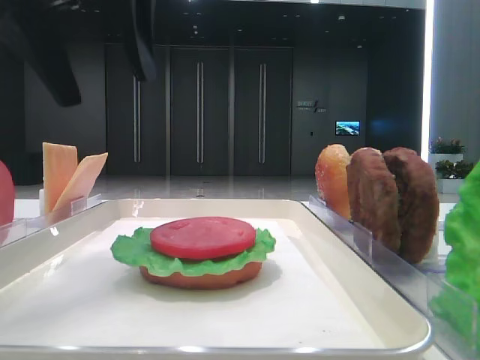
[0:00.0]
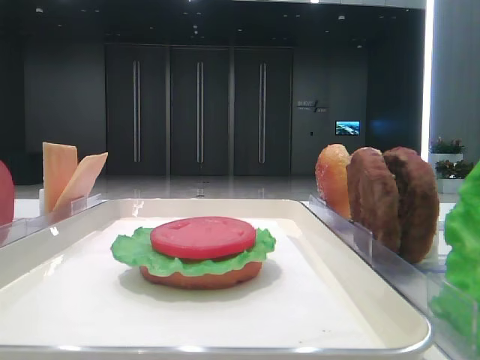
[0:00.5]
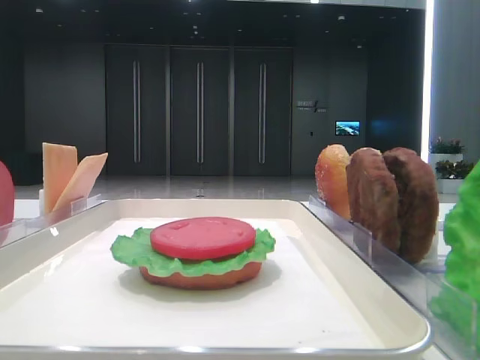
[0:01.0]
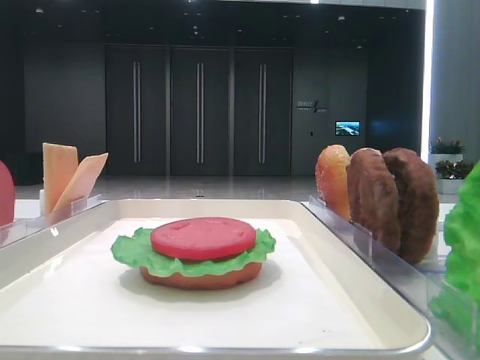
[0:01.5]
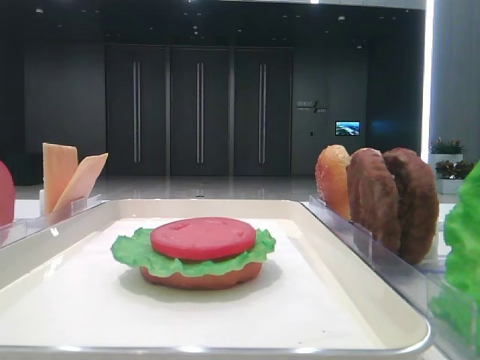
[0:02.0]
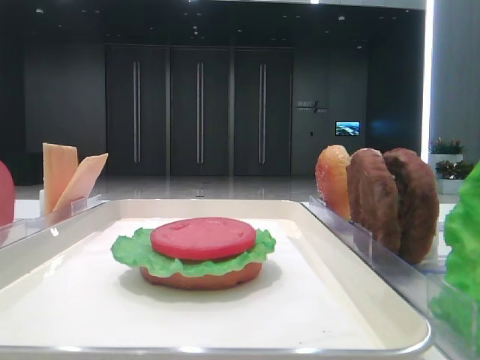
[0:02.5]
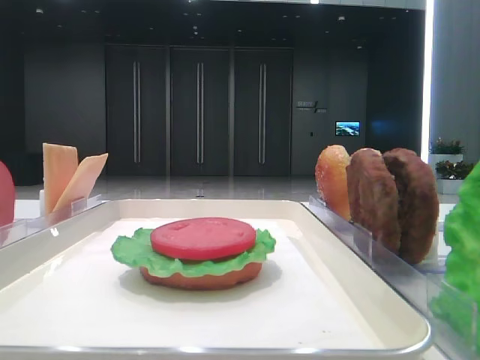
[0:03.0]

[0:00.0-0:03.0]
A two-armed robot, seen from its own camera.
0:00.0 to 0:01.5: The left gripper is displaced to the left and backward by some 25 cm.

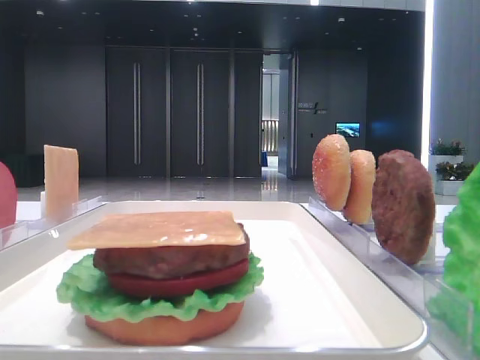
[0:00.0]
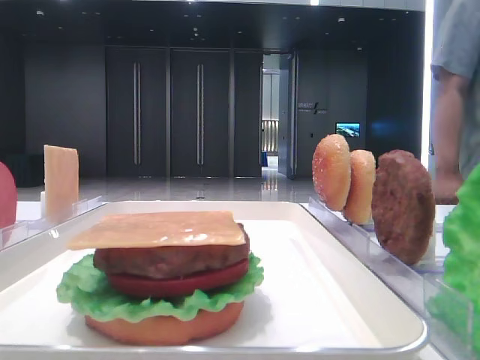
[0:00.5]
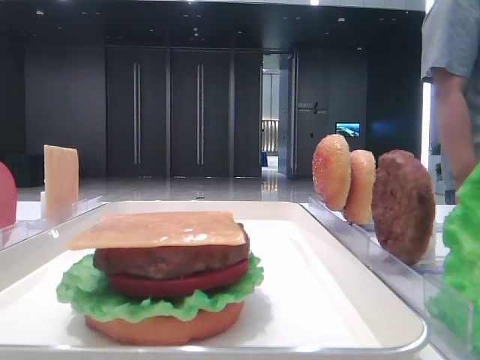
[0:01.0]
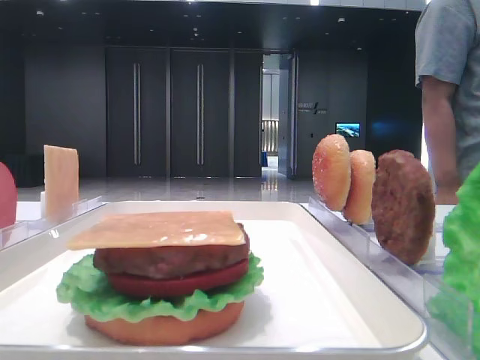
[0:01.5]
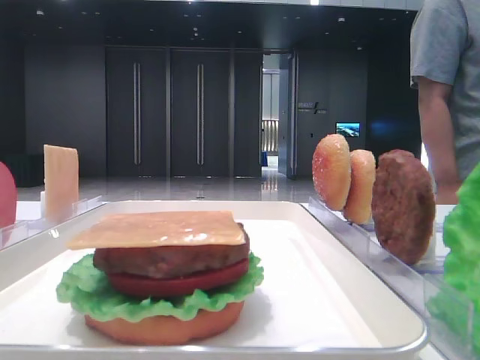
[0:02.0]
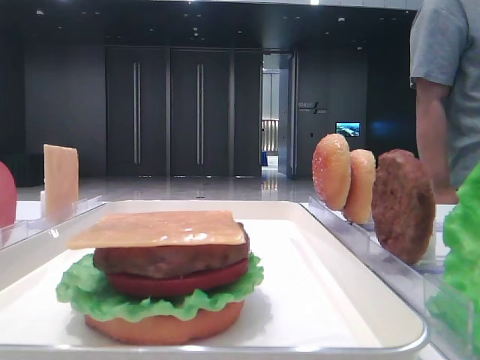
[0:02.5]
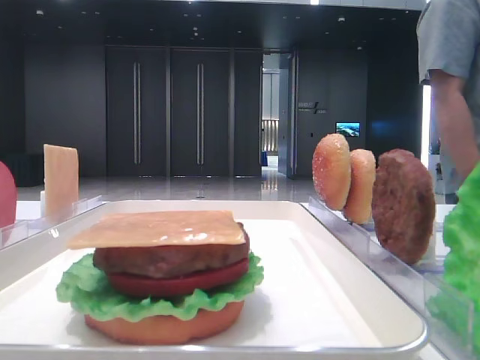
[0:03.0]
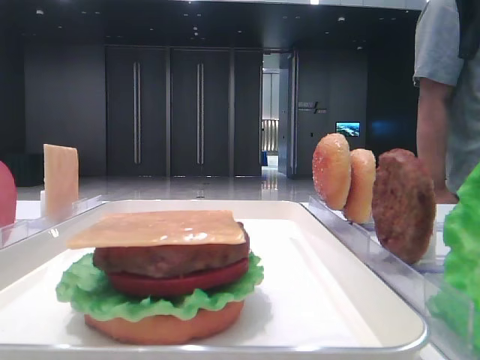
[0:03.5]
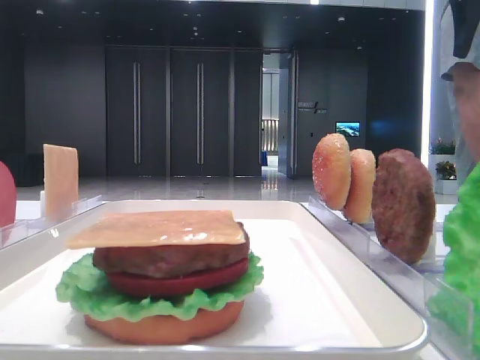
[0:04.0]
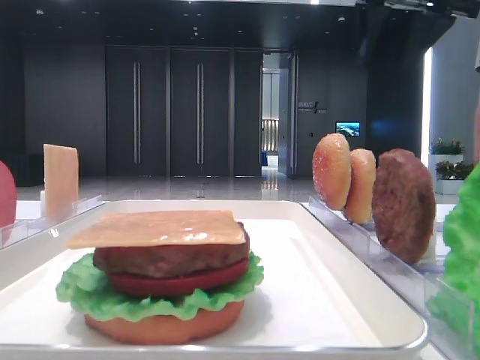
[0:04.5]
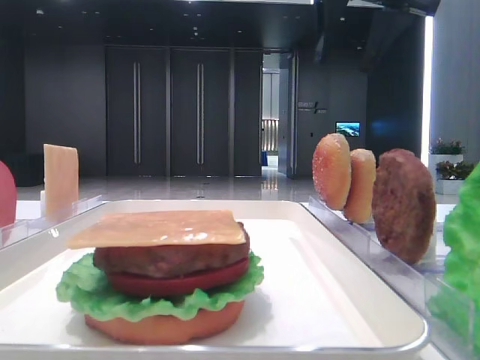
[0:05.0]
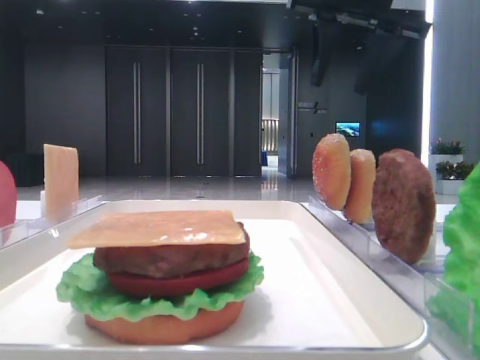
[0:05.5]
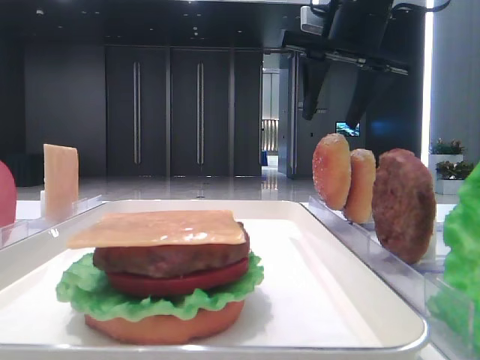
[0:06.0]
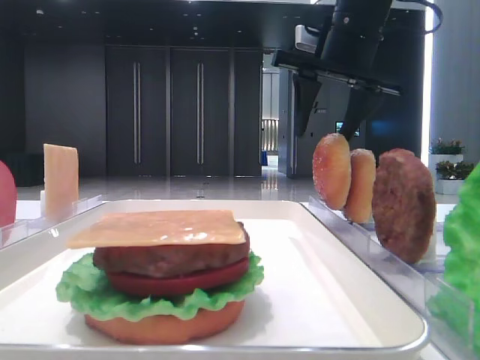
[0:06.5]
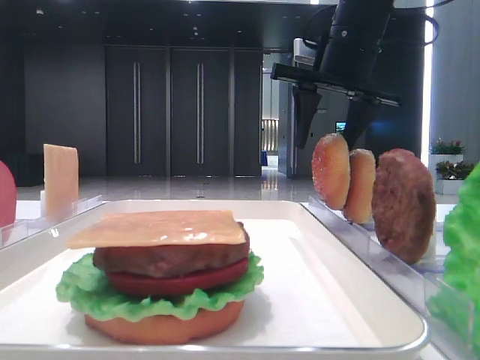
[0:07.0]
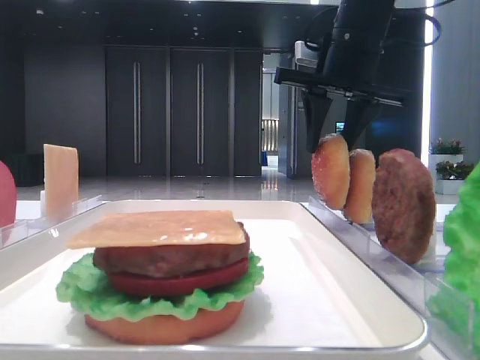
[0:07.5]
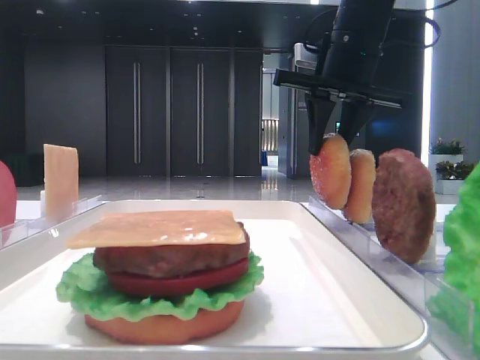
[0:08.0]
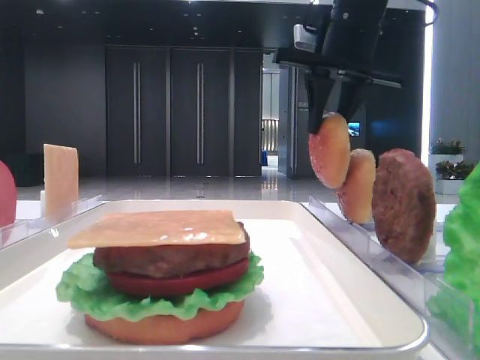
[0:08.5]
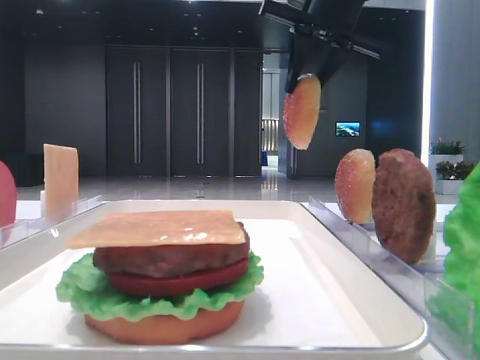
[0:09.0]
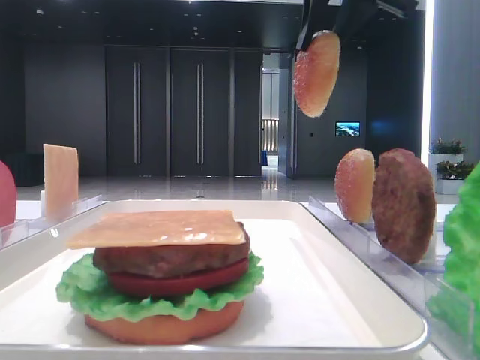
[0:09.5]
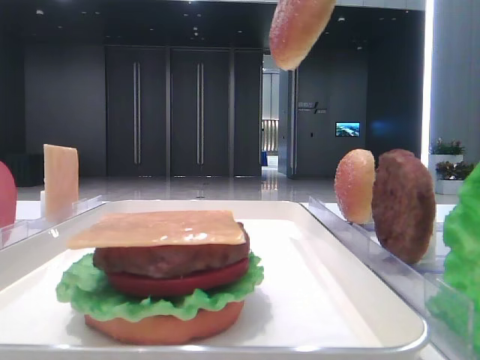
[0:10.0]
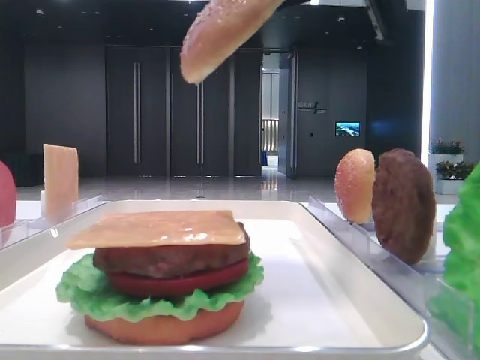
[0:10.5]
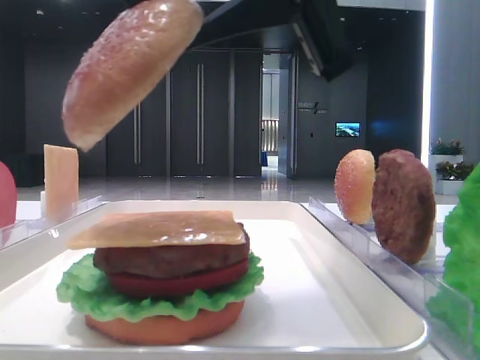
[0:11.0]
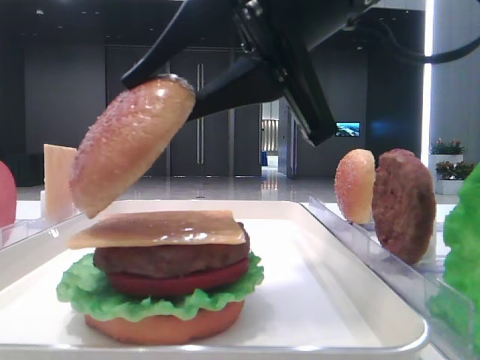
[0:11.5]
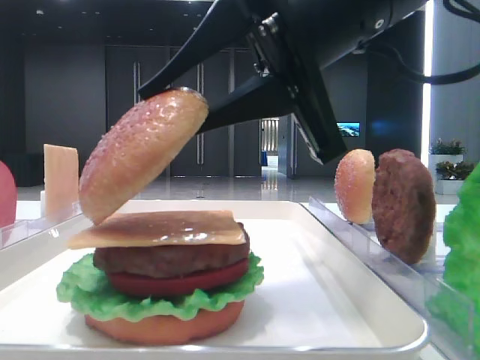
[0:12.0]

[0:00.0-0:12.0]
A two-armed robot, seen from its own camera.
Step, 0:00.0 to 0:08.0: Pick up the top bread slice with the right hand.
0:02.0 to 0:04.0: The right gripper travels forward by roughly 30 cm.
0:04.0 to 0:06.0: The right gripper is displaced to the left and downward by approximately 15 cm.
0:06.0 to 0:08.0: The right gripper closes its fingers.
0:08.0 to 0:10.0: The right gripper travels upward and backward by approximately 15 cm.
0:10.0 to 0:12.0: The right gripper heads downward, backward and to the left, covering some 20 cm.

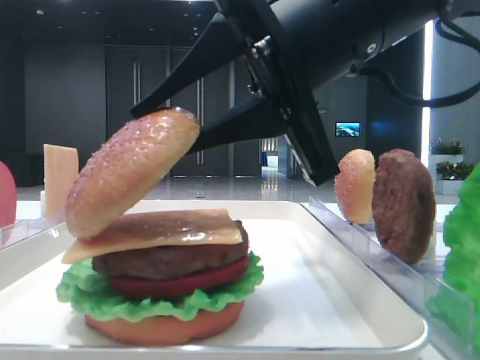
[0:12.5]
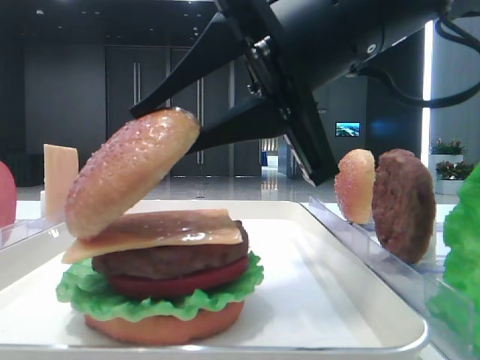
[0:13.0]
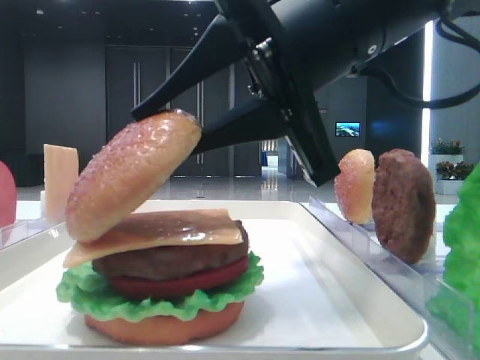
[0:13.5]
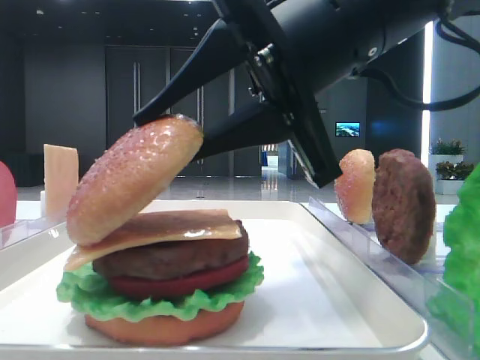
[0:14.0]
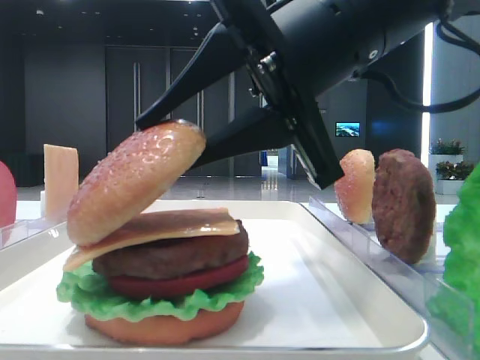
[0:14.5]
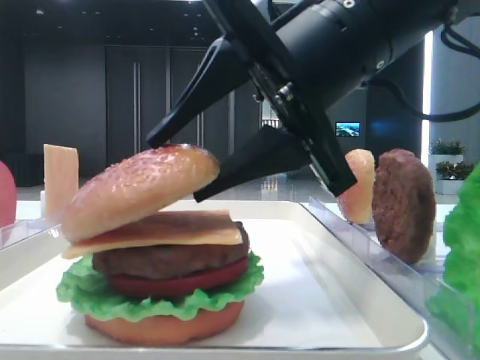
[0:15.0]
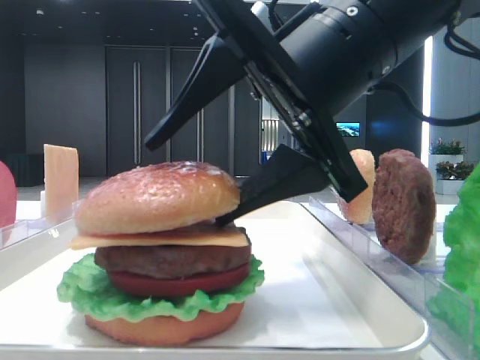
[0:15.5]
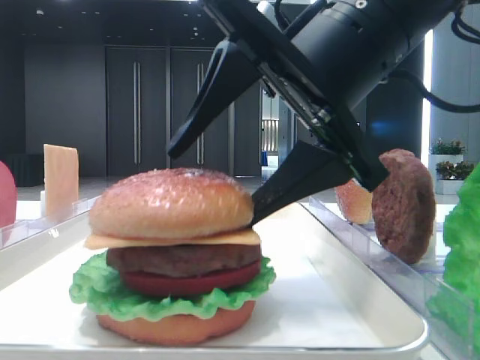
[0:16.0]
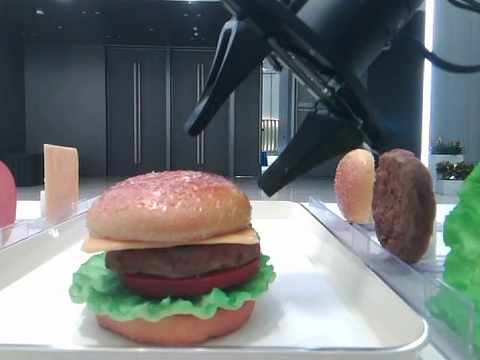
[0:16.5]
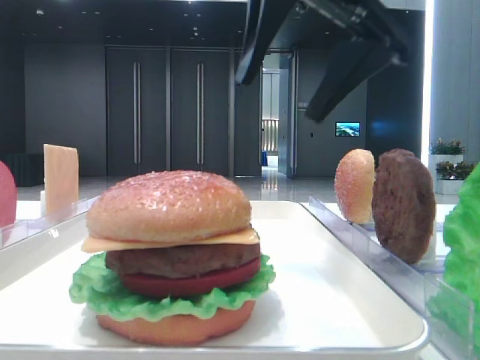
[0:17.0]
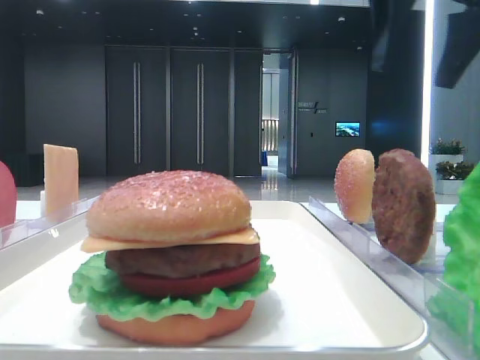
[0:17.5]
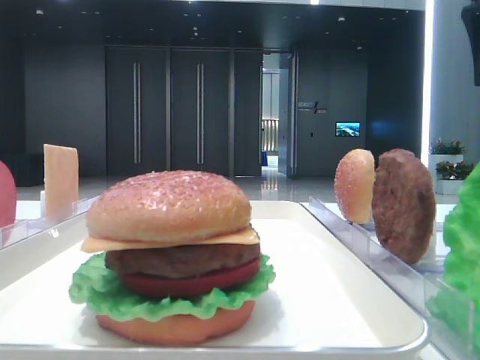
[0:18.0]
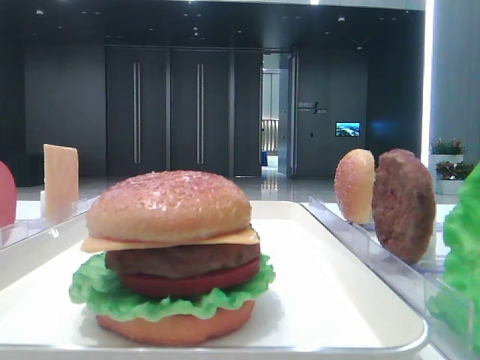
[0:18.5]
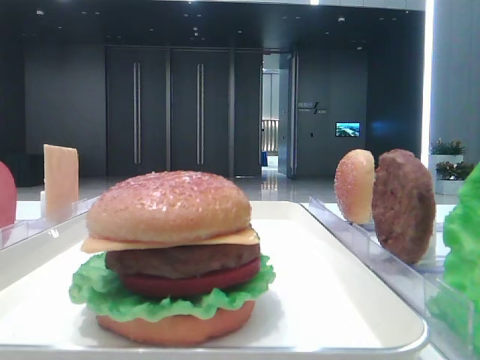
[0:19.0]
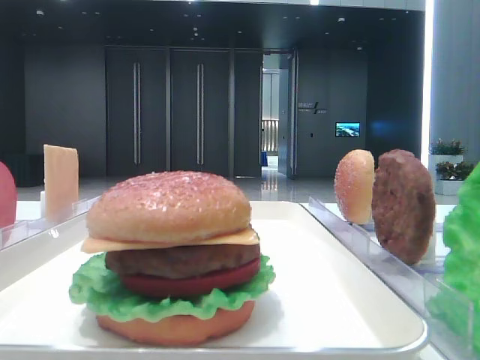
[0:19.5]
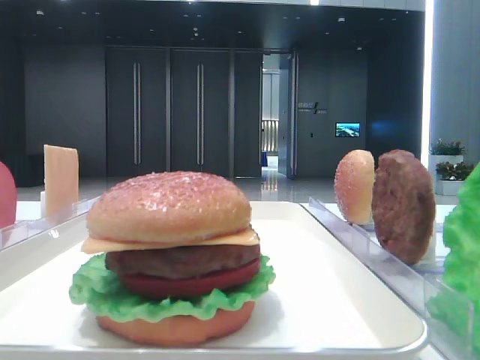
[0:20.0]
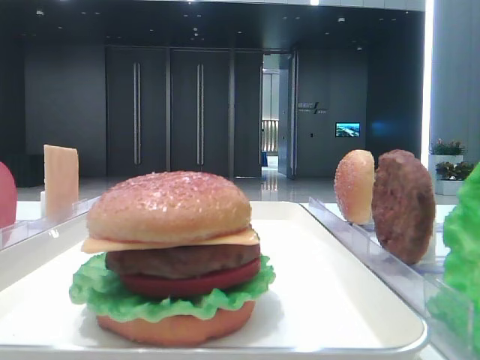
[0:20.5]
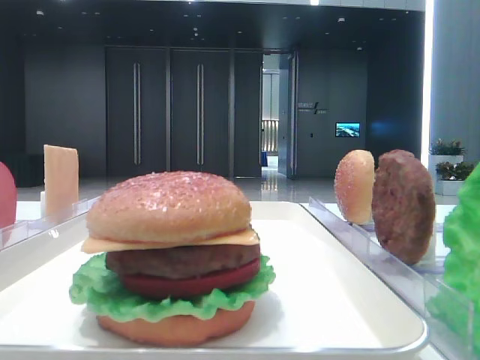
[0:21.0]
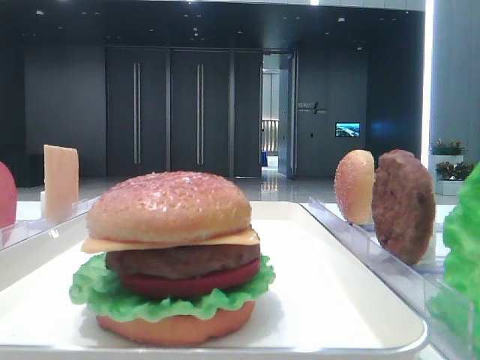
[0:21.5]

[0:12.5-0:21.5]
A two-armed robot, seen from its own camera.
Step, 0:12.5 to 0:16.0: Place the top bread slice on the cheese with the right hand.
0:12.5 to 0:14.5: Both grippers stay put.
0:14.5 to 0:17.0: The right gripper travels upward by about 10 cm, and opens its fingers.
0:17.0 to 0:19.5: The right gripper shifts roughly 30 cm backward and to the right.

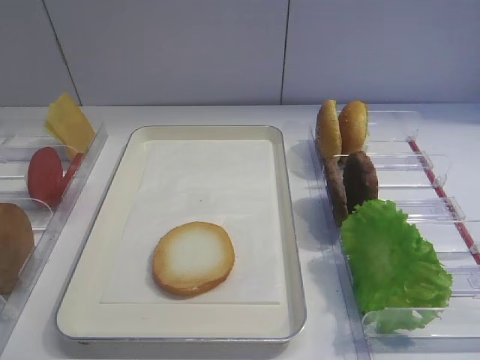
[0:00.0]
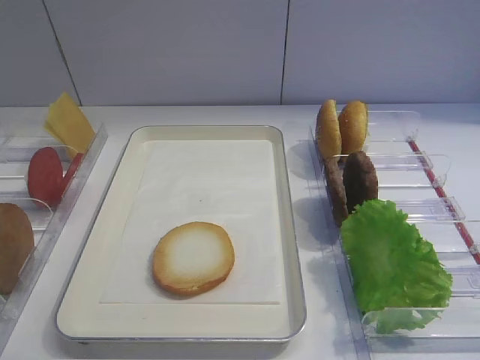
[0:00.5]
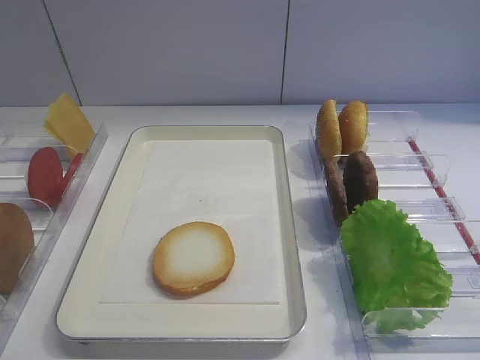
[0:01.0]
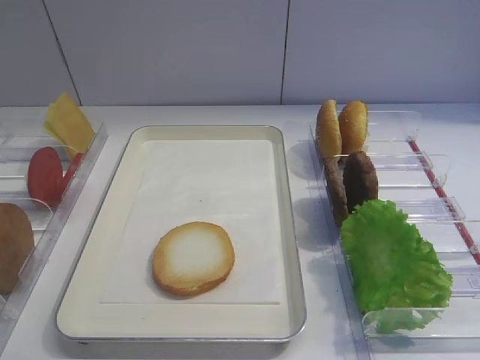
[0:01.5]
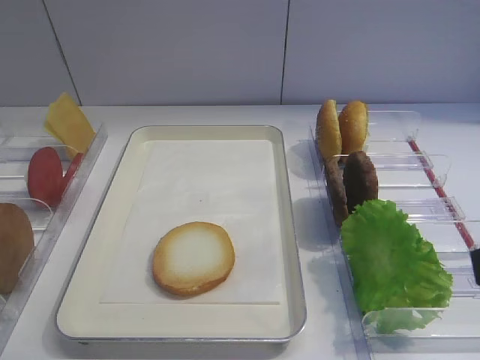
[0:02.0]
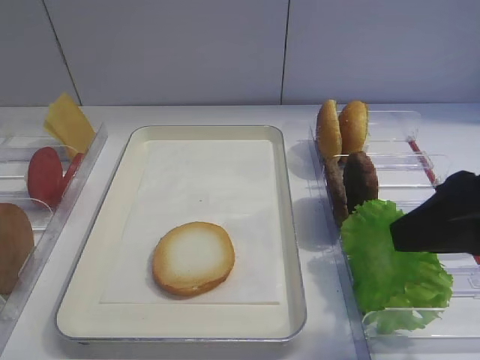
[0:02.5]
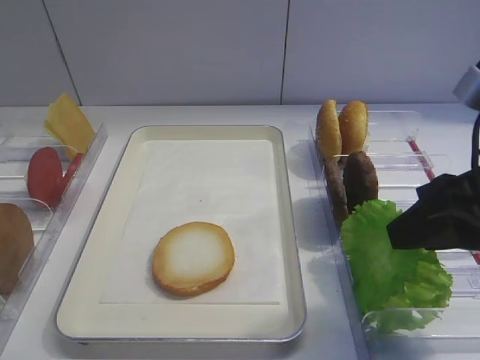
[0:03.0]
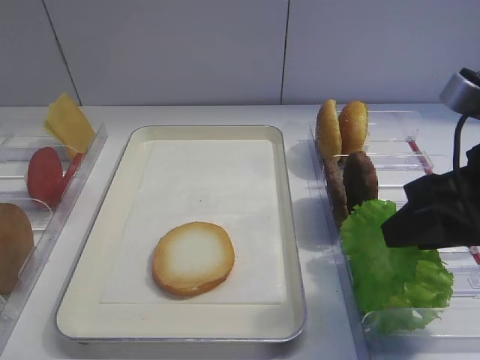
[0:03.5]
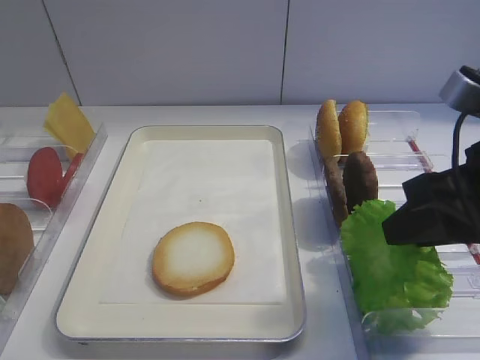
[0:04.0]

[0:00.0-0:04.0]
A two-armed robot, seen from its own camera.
0:02.0 to 0:04.0: The right gripper heads forward, covering about 10 cm.
